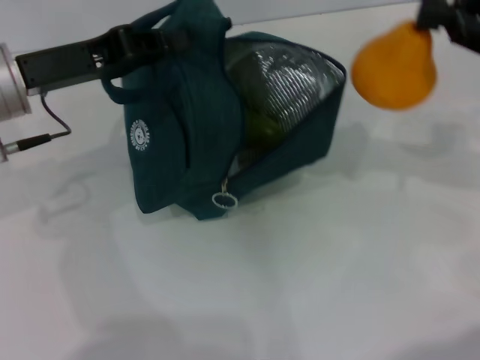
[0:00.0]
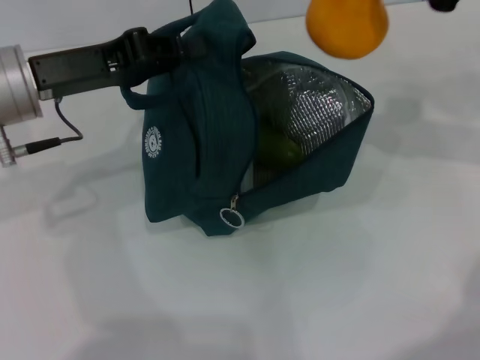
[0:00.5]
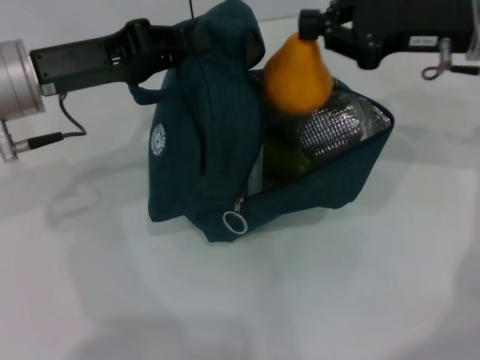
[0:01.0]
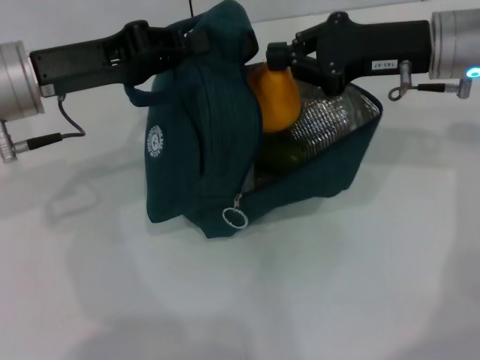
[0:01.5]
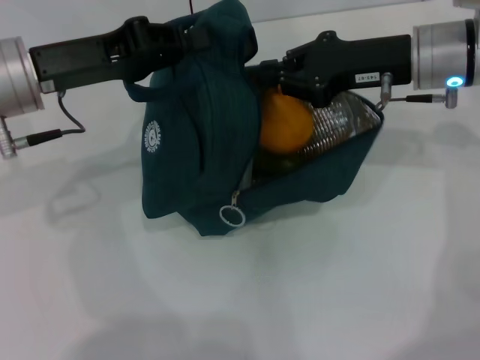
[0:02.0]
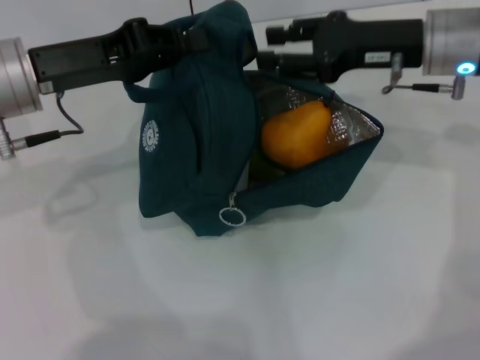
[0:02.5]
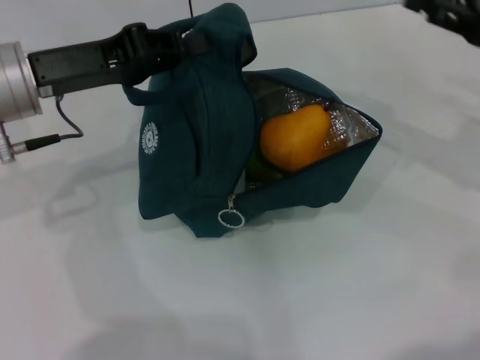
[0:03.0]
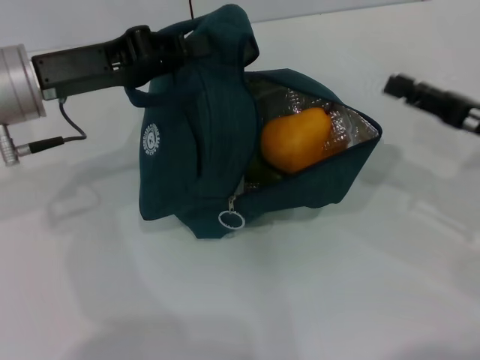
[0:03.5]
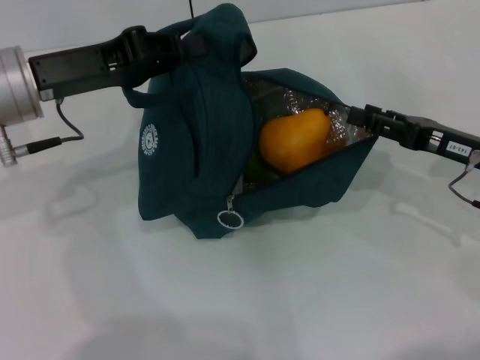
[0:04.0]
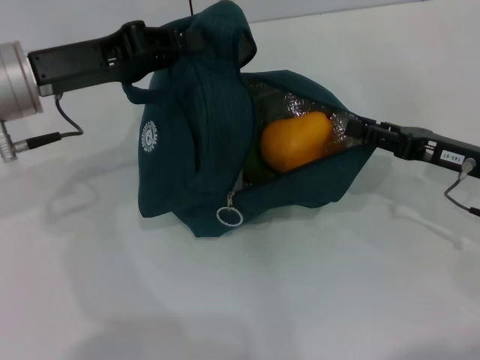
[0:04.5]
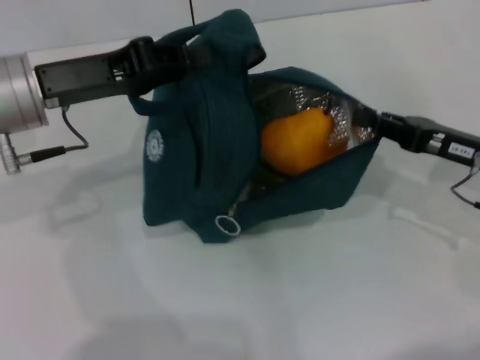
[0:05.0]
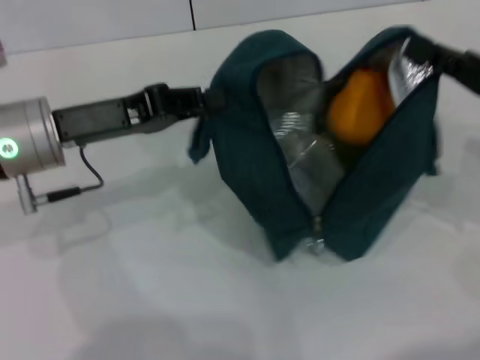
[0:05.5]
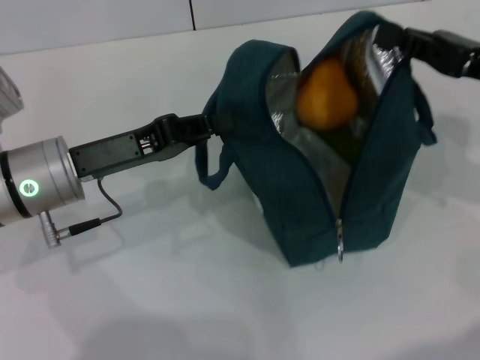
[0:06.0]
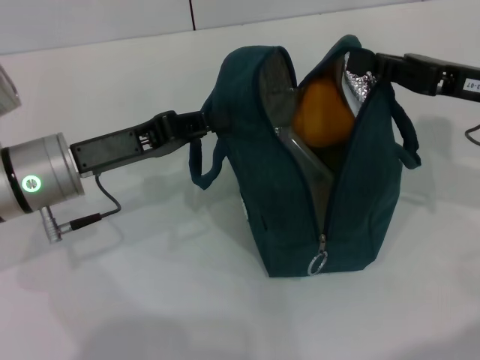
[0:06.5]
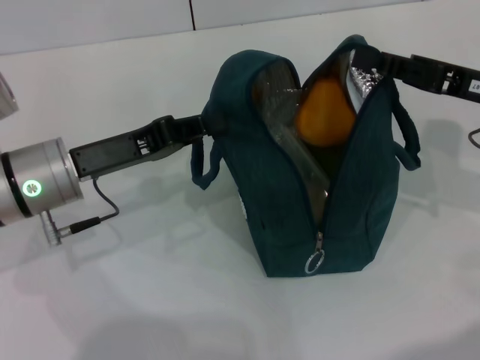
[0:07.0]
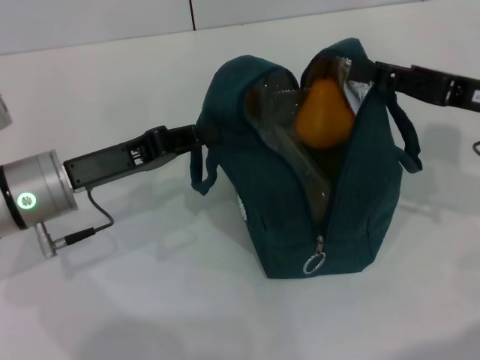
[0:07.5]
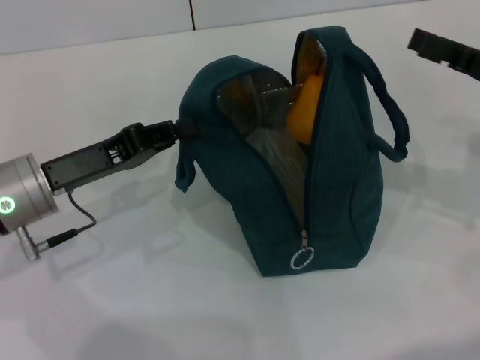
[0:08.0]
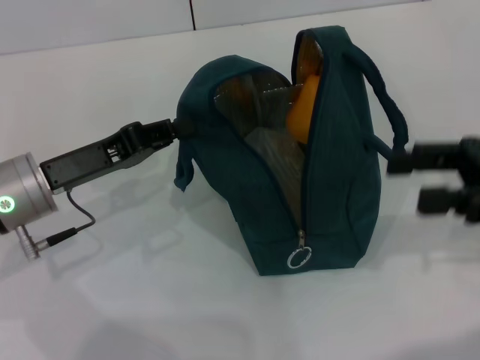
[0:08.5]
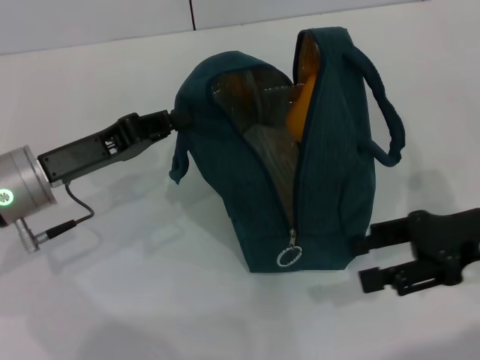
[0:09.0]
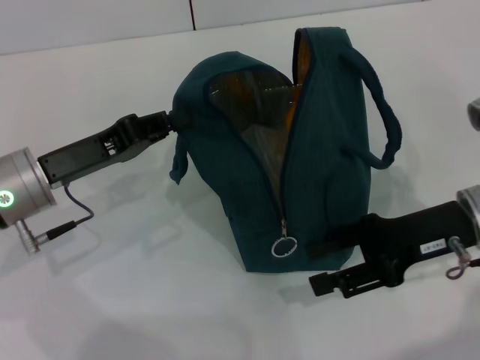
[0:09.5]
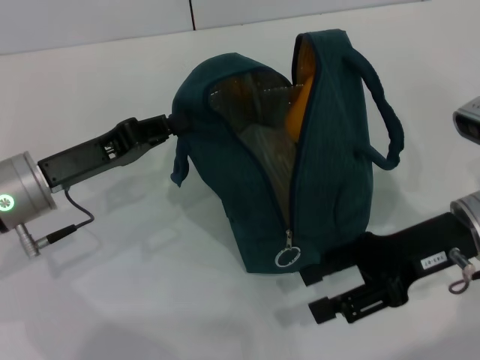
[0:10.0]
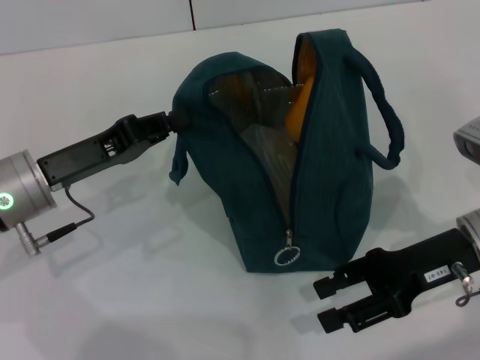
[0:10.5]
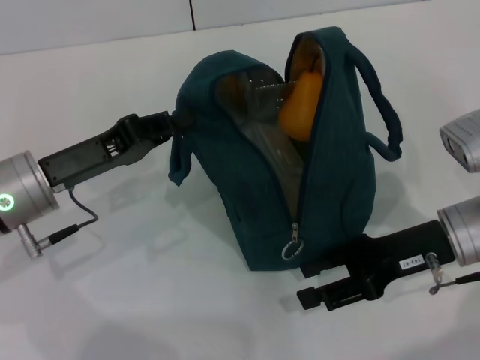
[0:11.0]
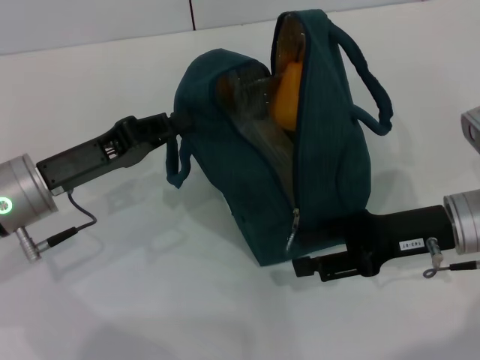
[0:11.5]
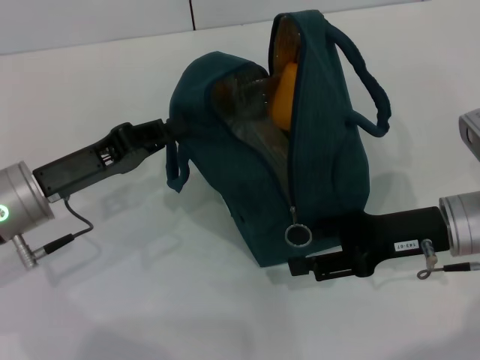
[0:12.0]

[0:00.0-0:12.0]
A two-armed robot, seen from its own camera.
Step, 0:03.0 to 0:07.5: Hold the lunch bag with your right hand.
0:00.0 to 0:02.0: The right gripper shifts approximately 15 cm to the left, forward and downward.
0:02.0 to 0:04.0: The right gripper is displaced downward, backward and to the right by some 15 cm, and opens up.
0:04.0 to 0:06.0: The left gripper heads downward, covering approximately 5 cm, while the right gripper heads upward, covering approximately 10 cm, and closes up.
0:06.0 to 0:08.0: The right gripper opens up.
0:08.0 to 0:10.0: The right gripper travels to the left and downward by some 10 cm.
0:10.0 to 0:12.0: The grippers stay close to where they were, moving slightly.

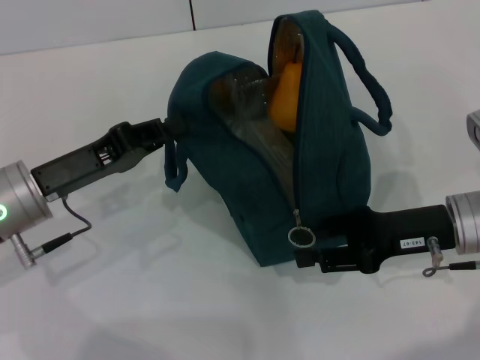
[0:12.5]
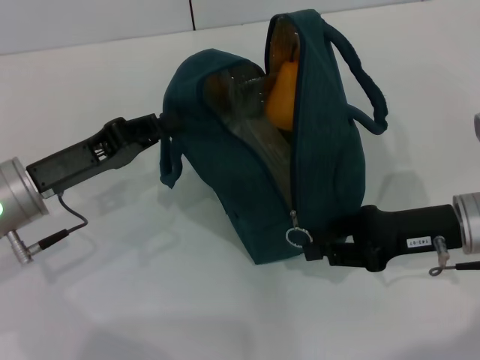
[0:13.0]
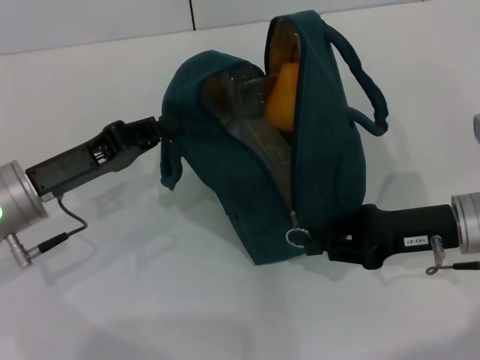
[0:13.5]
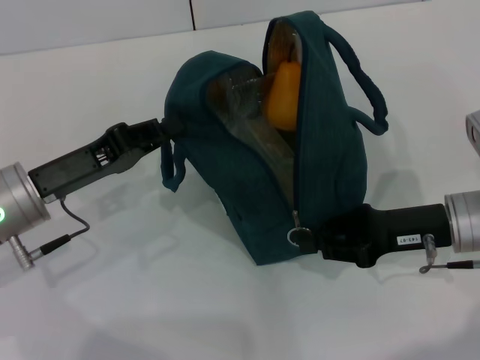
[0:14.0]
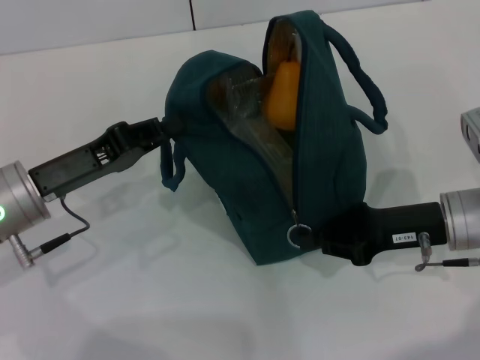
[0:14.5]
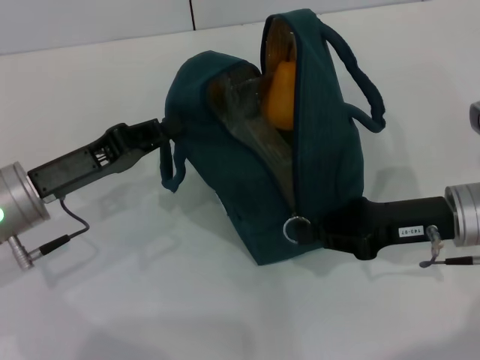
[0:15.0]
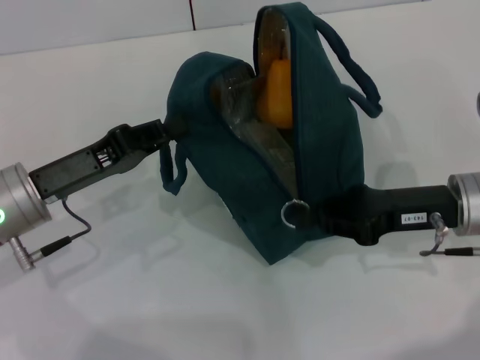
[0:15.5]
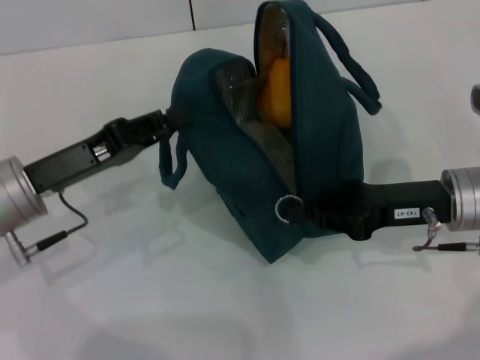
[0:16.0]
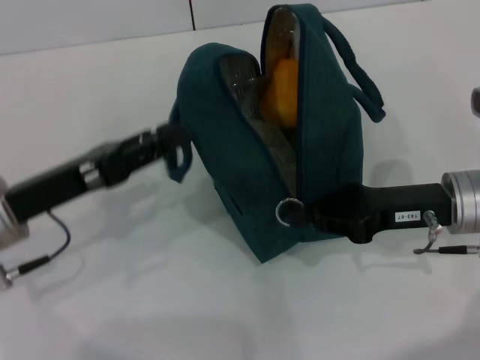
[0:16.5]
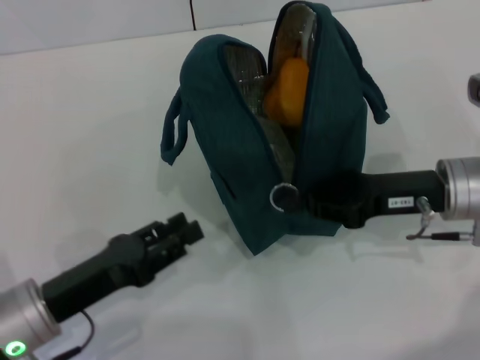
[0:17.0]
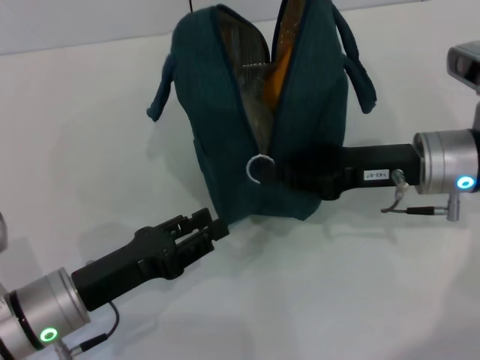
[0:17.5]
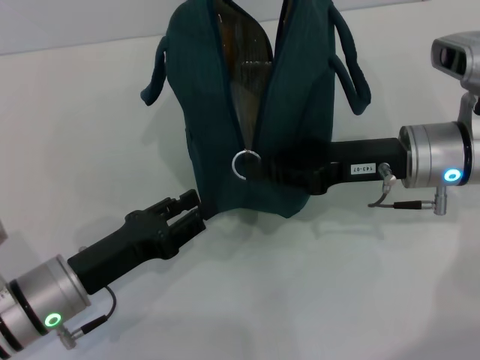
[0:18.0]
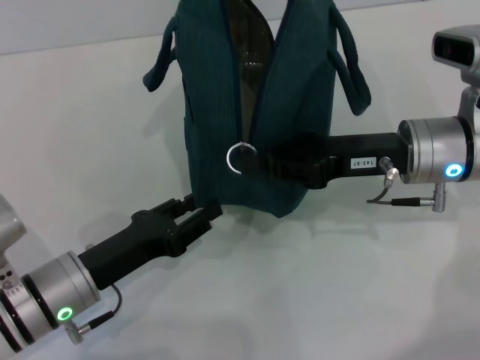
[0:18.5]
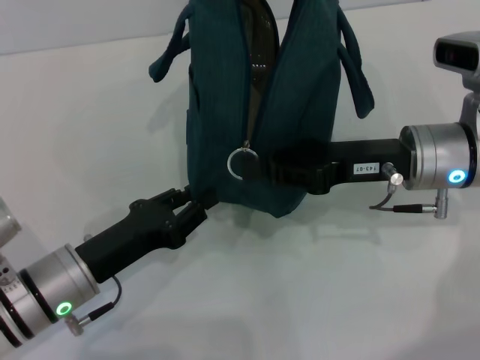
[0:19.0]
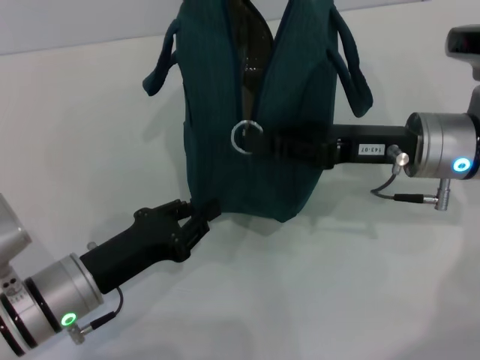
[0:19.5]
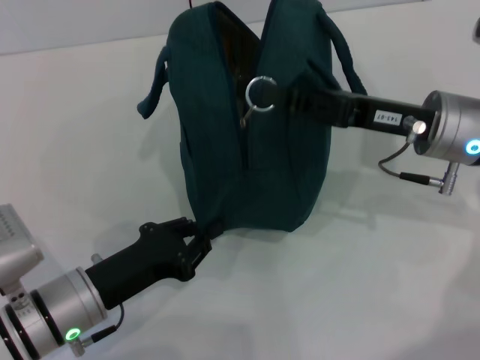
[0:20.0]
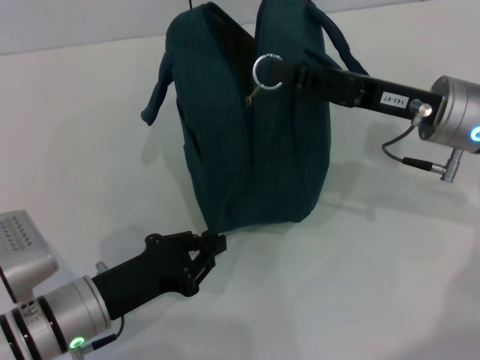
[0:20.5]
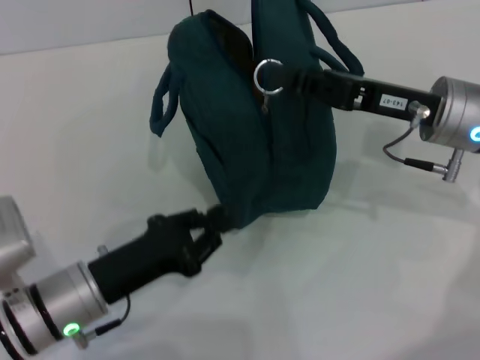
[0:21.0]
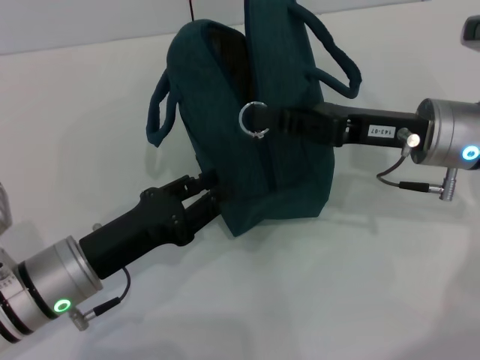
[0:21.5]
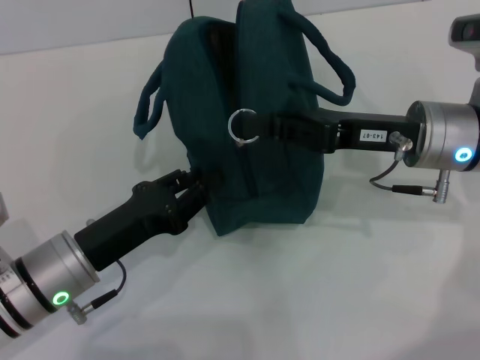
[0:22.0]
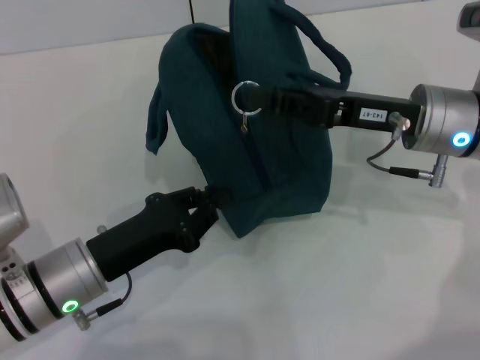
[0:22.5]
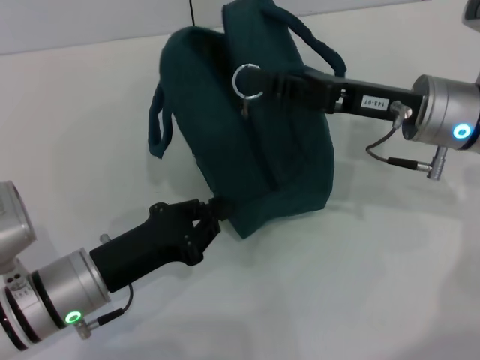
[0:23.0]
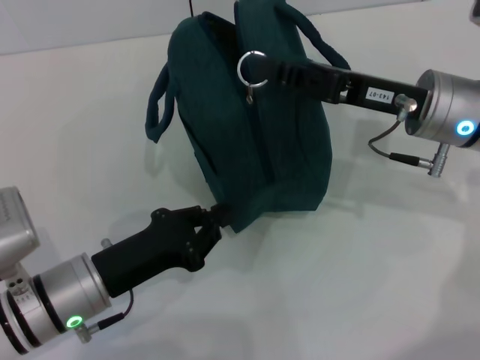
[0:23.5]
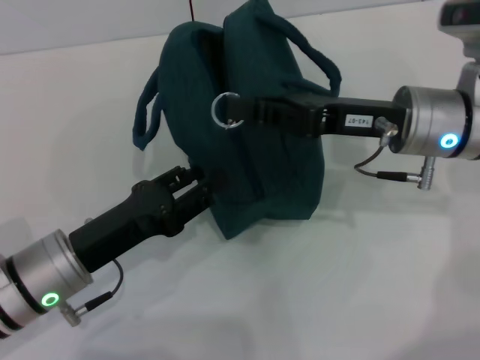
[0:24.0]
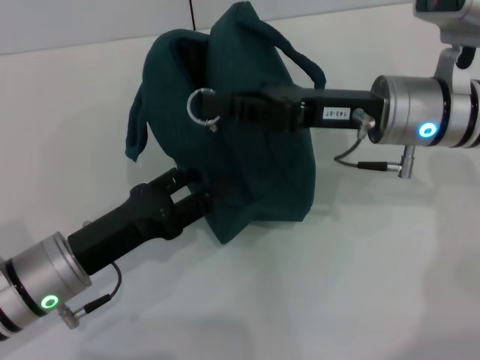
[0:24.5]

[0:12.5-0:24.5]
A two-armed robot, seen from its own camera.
Step, 0:12.5 to 0:16.5: Hold the lunch bag with your left hand.
0:12.5 to 0:14.5: The right gripper closes.
0:14.5 to 0:16.5: The left gripper opens.
0:16.5 to 0:18.5: The left gripper shifts roughly 10 cm downward. Meanwhile the right gripper shifts by roughly 5 cm.
0:18.5 to 0:20.5: The left gripper closes.
0:22.5 to 0:24.5: The left gripper opens up.

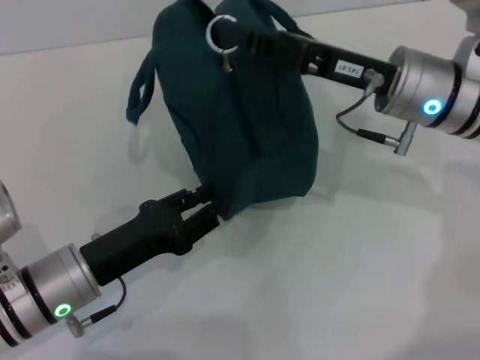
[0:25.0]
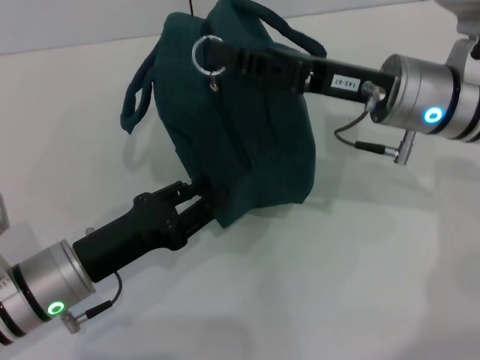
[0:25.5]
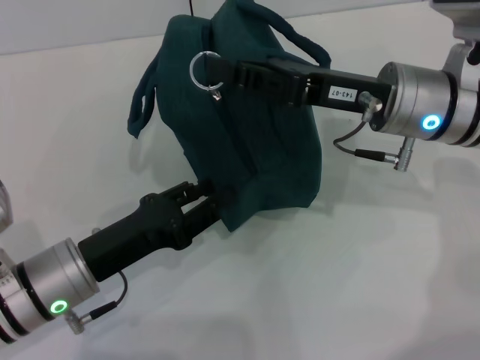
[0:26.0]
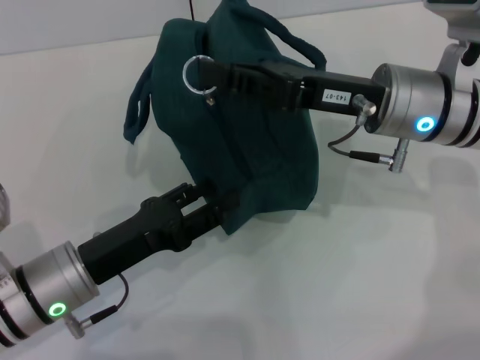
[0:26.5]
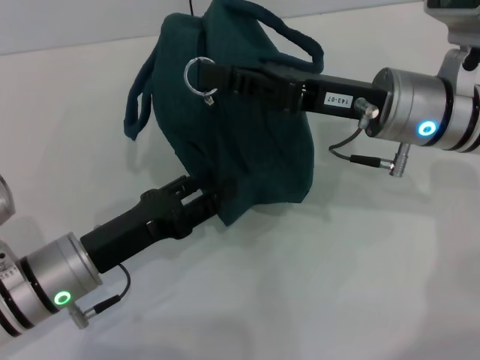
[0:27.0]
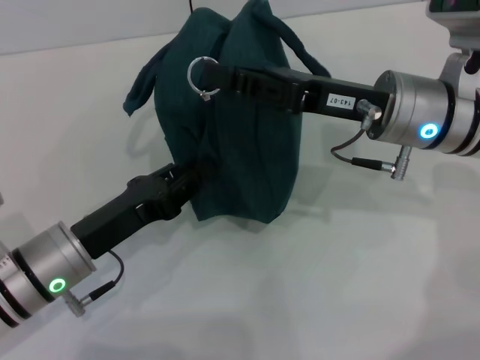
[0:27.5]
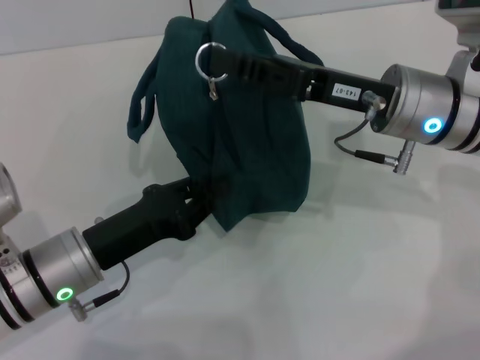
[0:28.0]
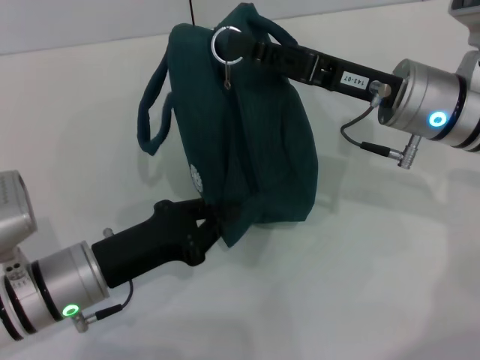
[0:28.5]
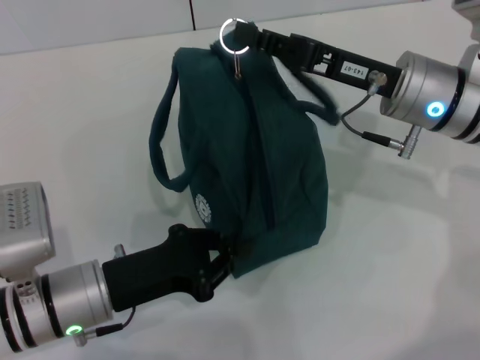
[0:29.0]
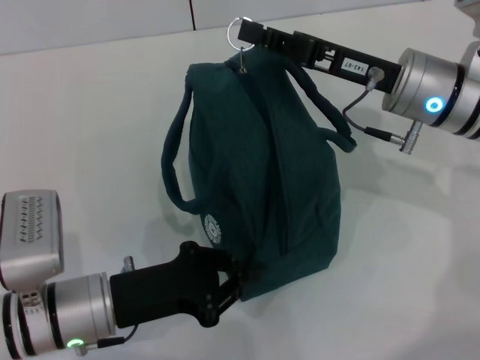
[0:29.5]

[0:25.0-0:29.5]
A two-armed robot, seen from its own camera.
0:27.0 to 0:29.5: The left gripper closes its fingers.
